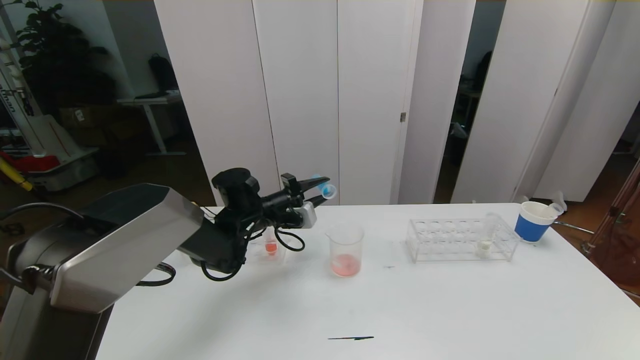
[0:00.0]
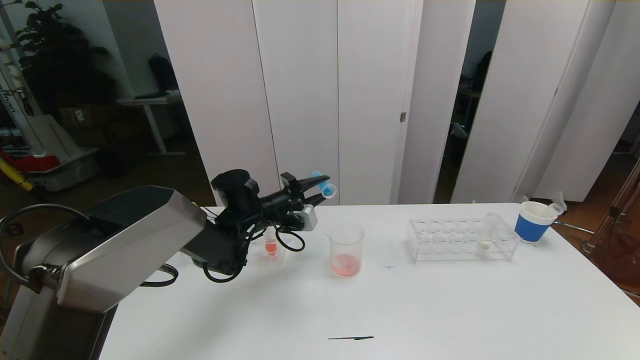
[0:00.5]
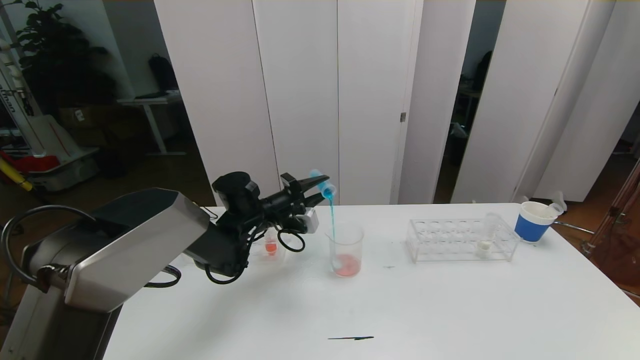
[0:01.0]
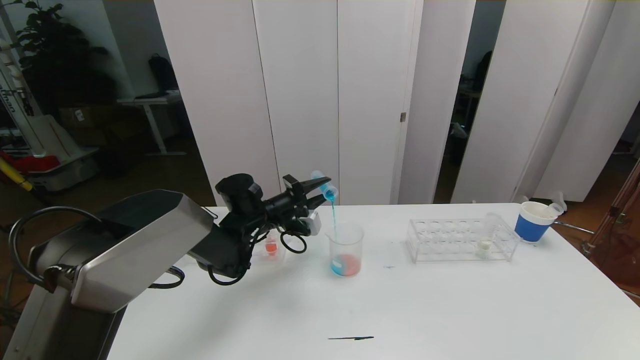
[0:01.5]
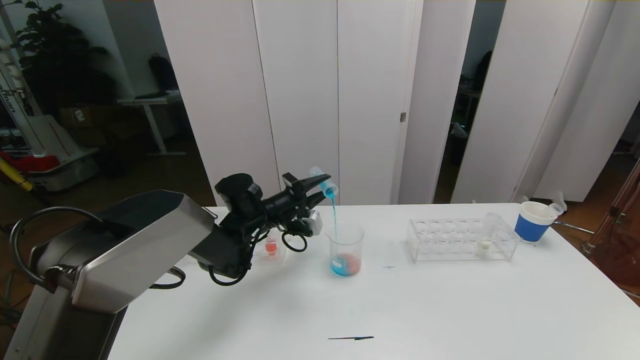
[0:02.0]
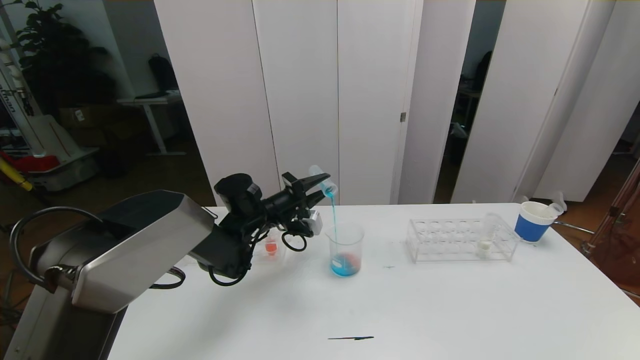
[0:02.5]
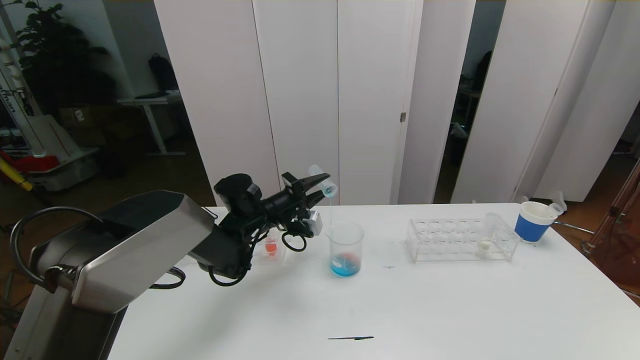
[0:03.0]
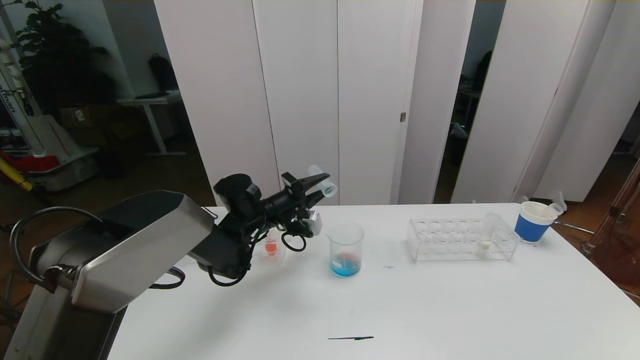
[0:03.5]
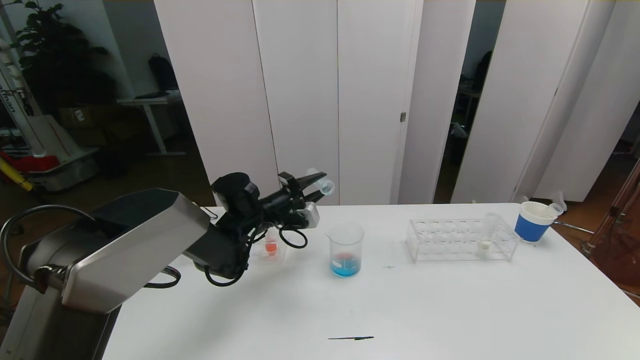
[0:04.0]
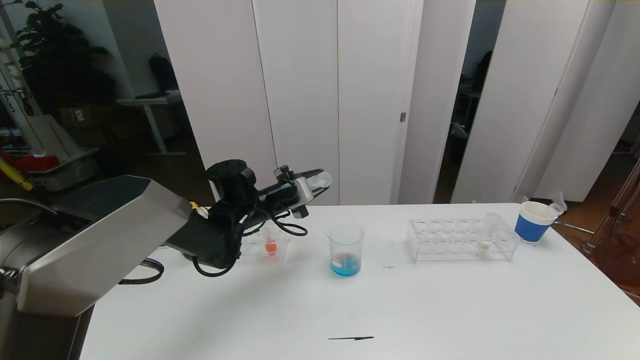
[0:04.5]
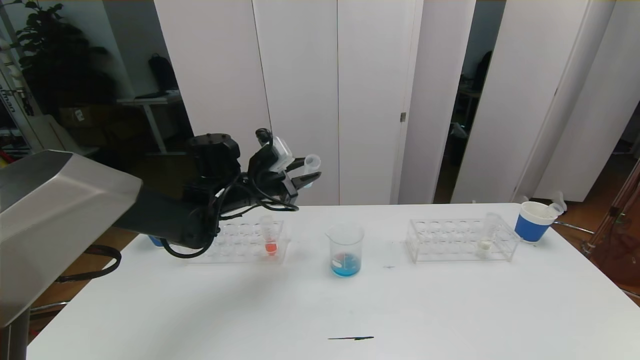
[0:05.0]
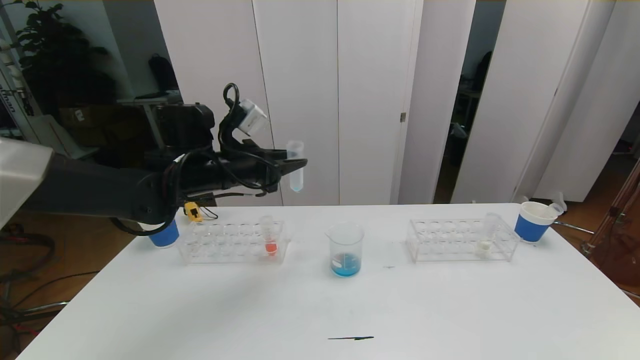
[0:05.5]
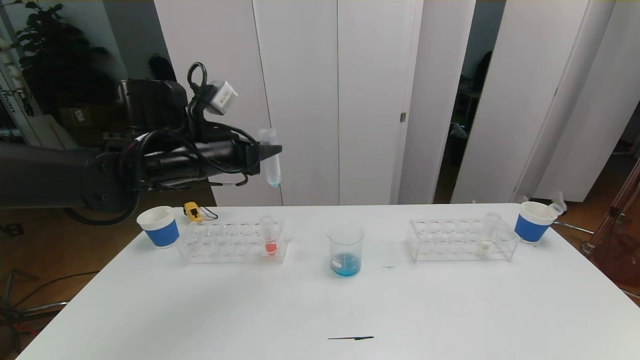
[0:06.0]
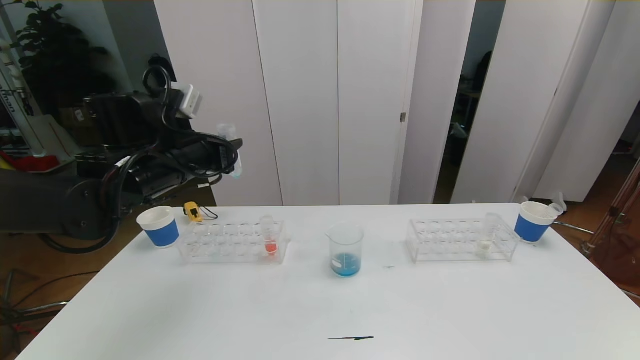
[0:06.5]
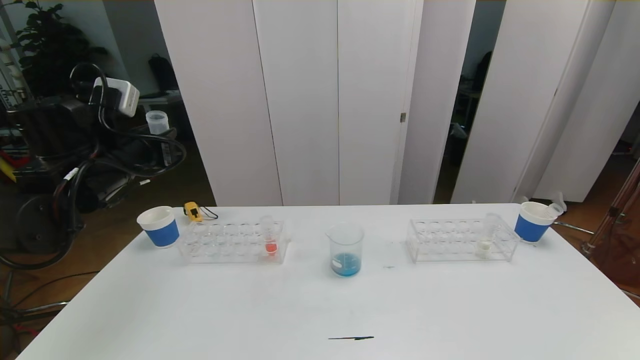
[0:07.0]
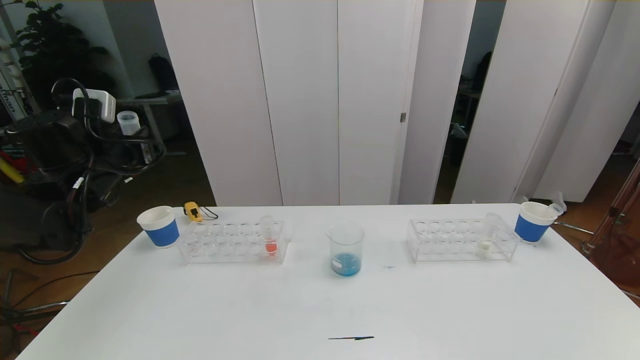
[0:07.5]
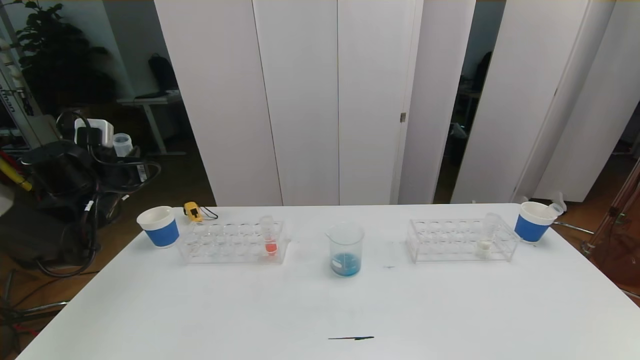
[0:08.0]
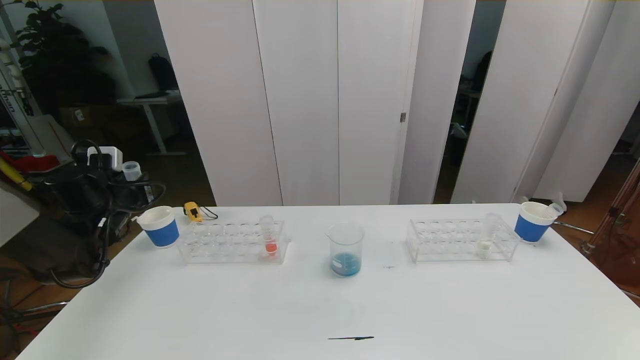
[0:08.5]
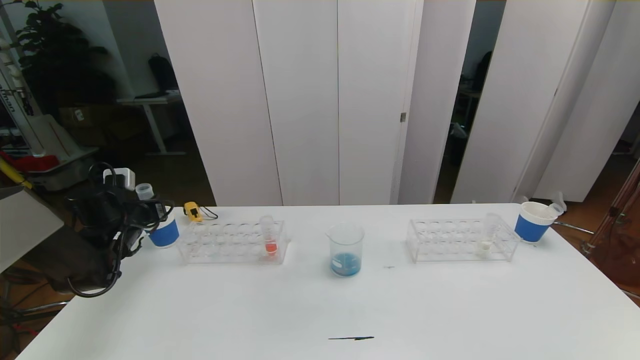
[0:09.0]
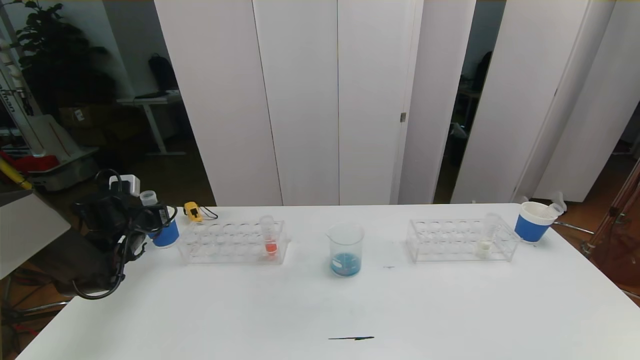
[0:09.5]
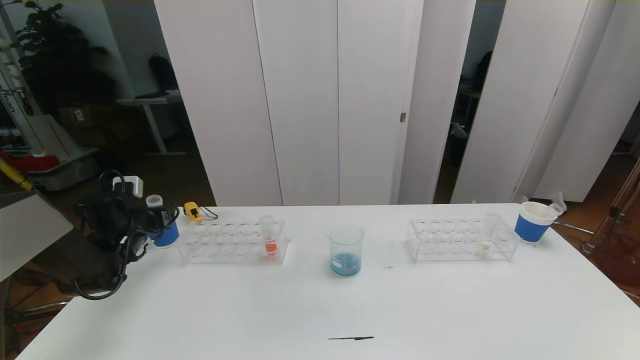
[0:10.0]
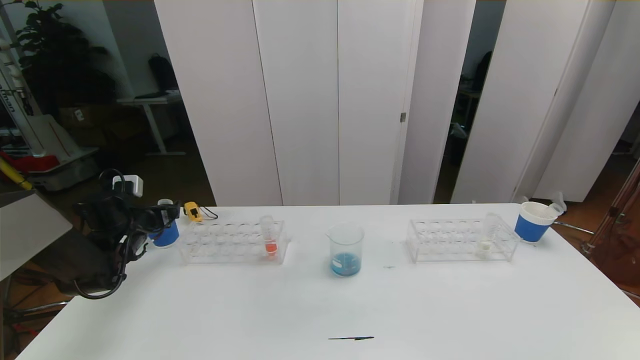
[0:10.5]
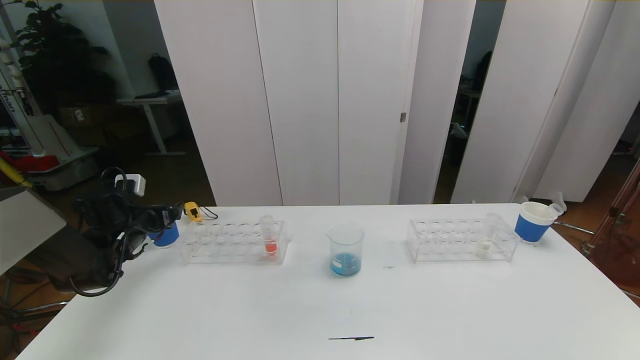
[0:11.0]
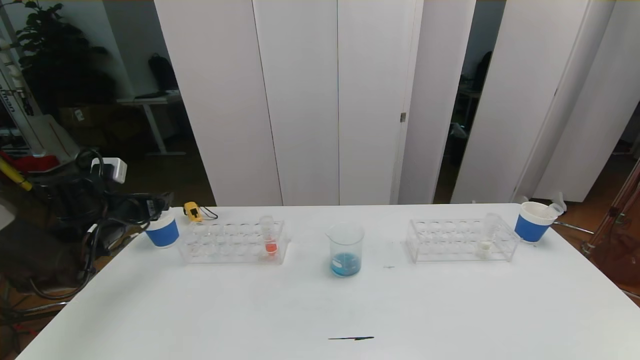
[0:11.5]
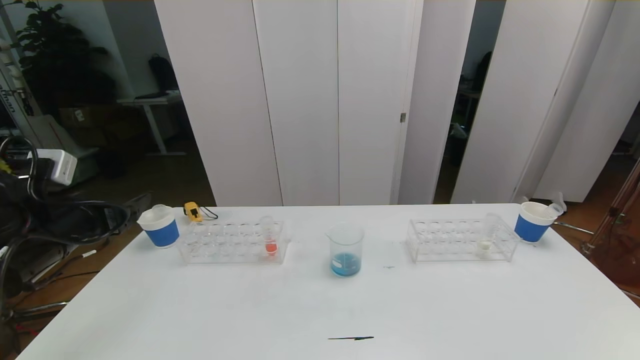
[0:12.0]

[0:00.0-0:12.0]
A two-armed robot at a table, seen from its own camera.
Task of the whole recording: pick up the test tube with red pigment the test tube with blue pigment and the test tube with white pigment by grippers and pour them into the beaker.
0.0 to 4.0 s: The grippers move only a little.
4.0 to 6.0 s: The left gripper travels upward, backward and to the left by about 15 cm.
6.0 to 8.0 s: The left gripper goes about 20 cm to the left and downward.
8.0 to 10.0 s: The left gripper heads downward, covering some 10 cm, and opens up.
10.0 to 12.0 s: The left gripper shifts roughly 20 cm backward and upward.

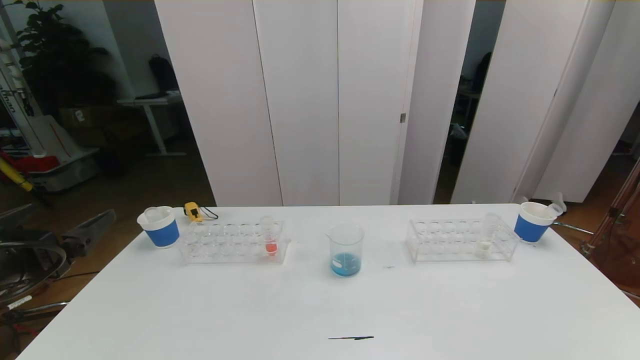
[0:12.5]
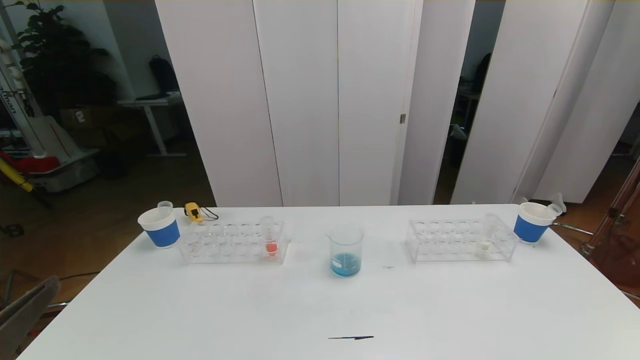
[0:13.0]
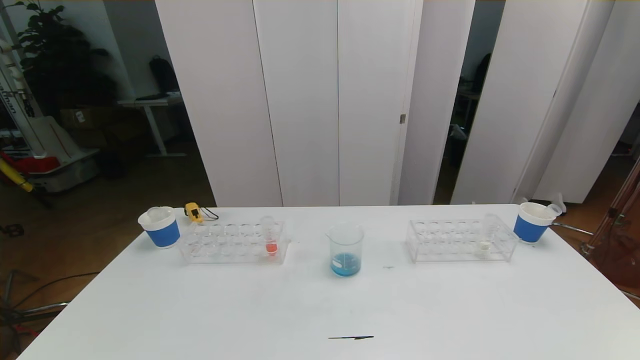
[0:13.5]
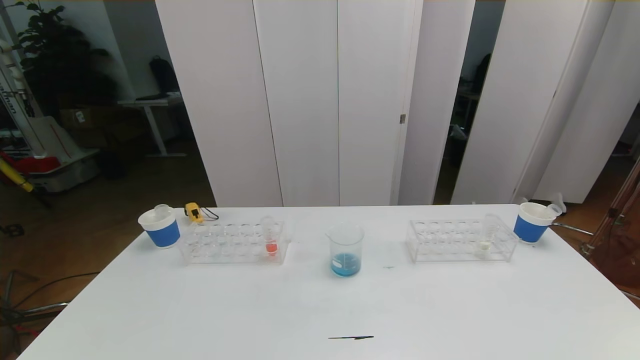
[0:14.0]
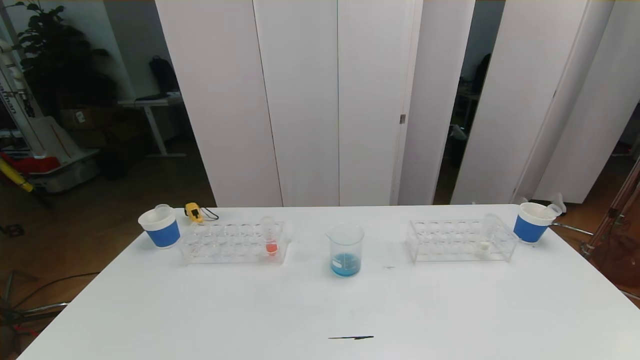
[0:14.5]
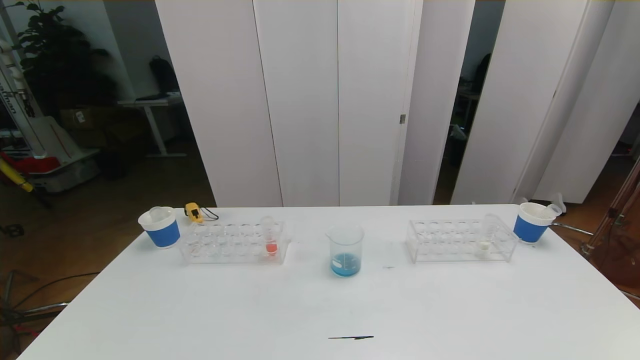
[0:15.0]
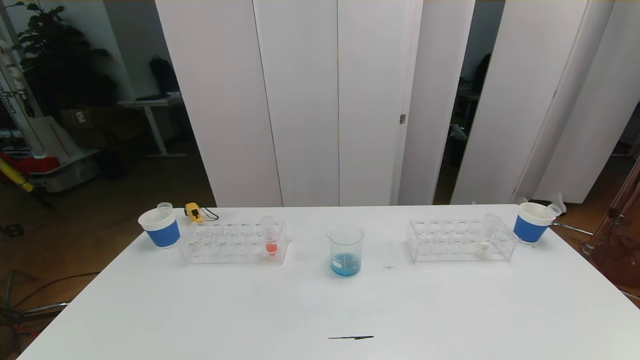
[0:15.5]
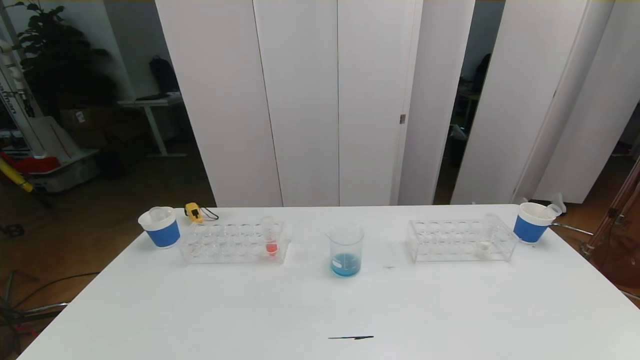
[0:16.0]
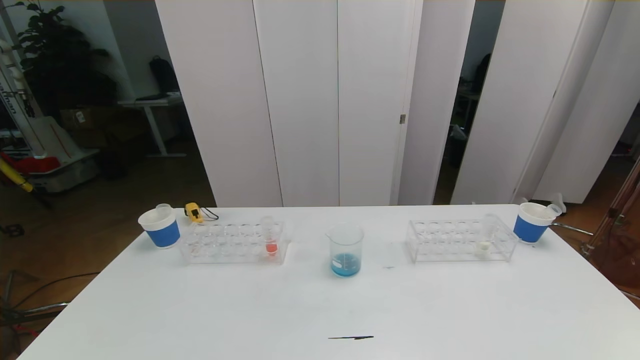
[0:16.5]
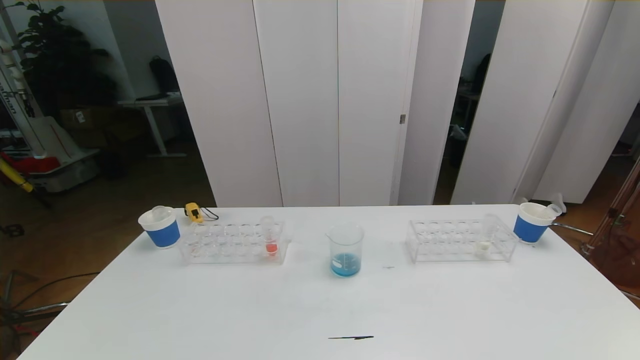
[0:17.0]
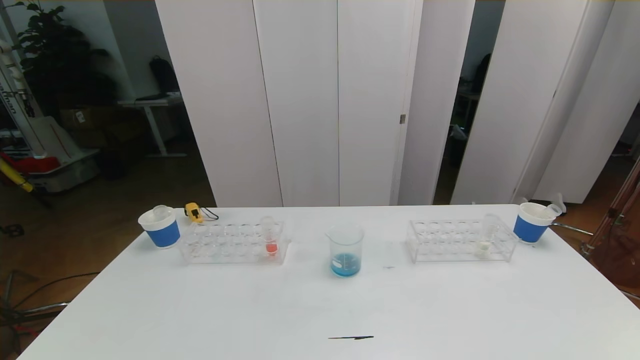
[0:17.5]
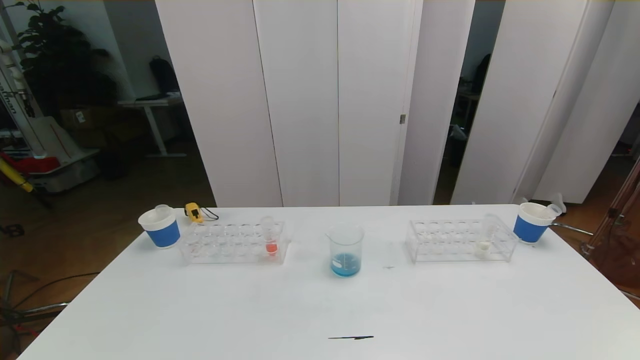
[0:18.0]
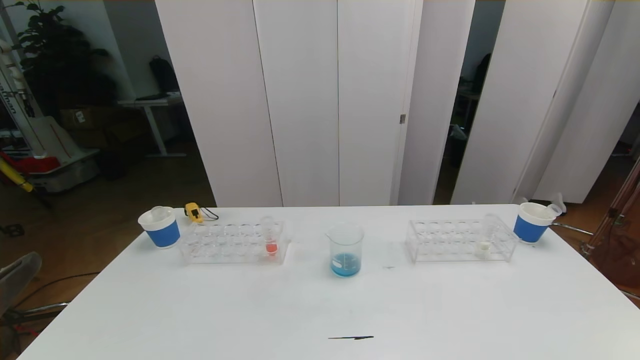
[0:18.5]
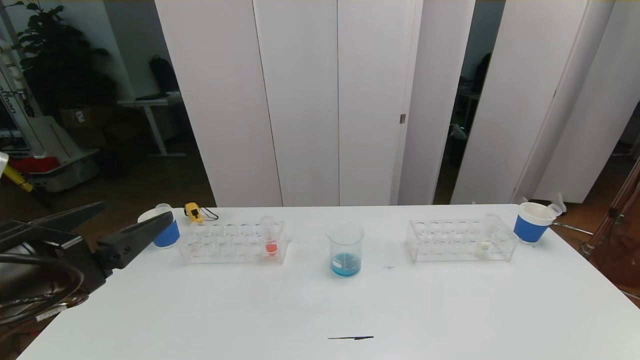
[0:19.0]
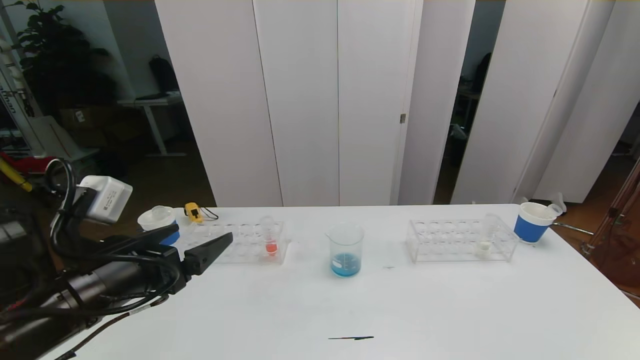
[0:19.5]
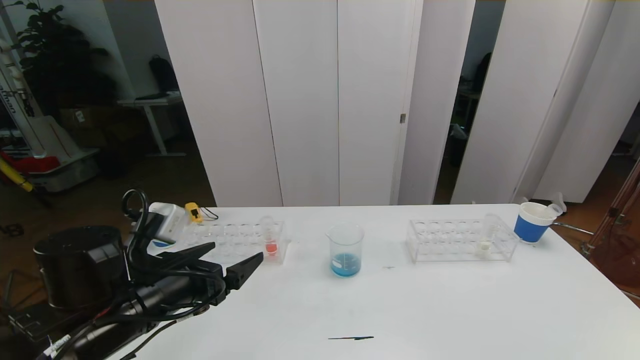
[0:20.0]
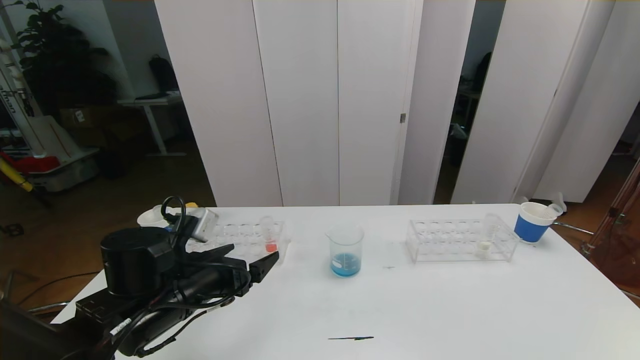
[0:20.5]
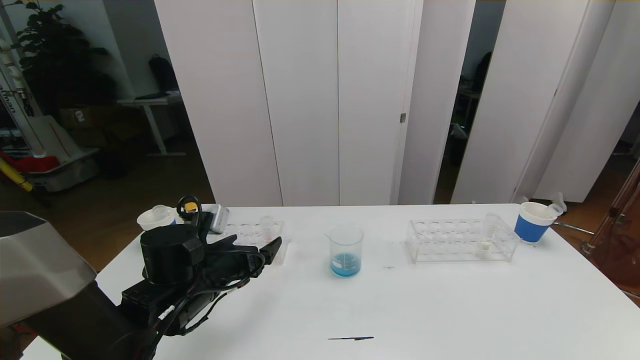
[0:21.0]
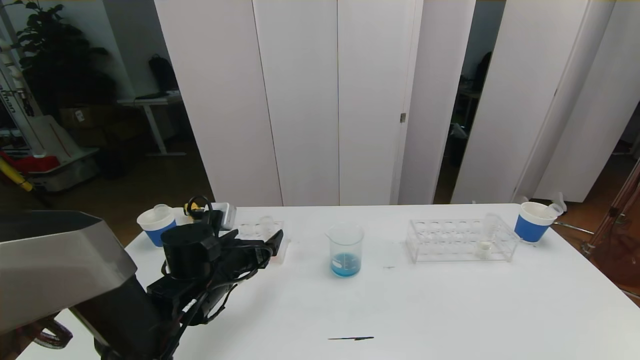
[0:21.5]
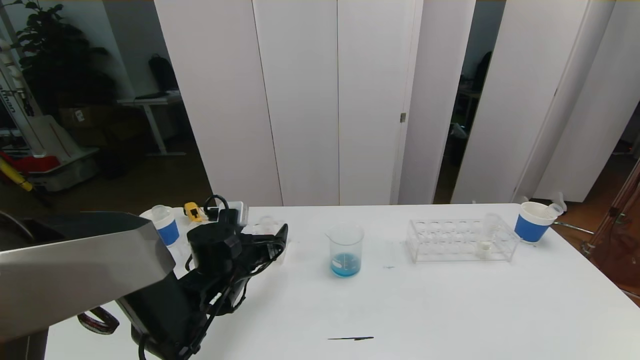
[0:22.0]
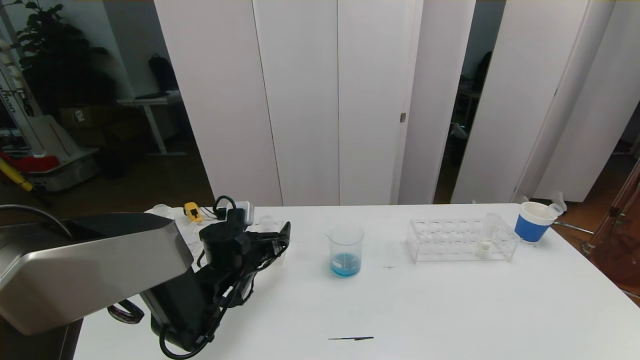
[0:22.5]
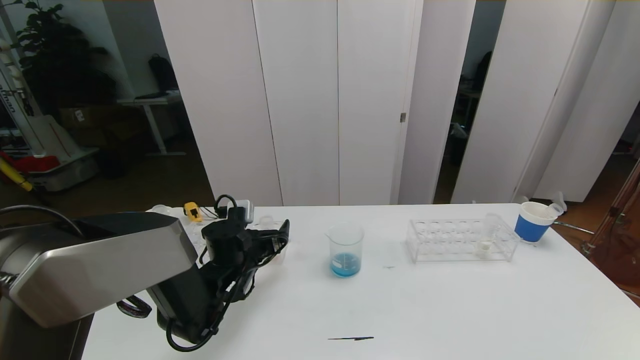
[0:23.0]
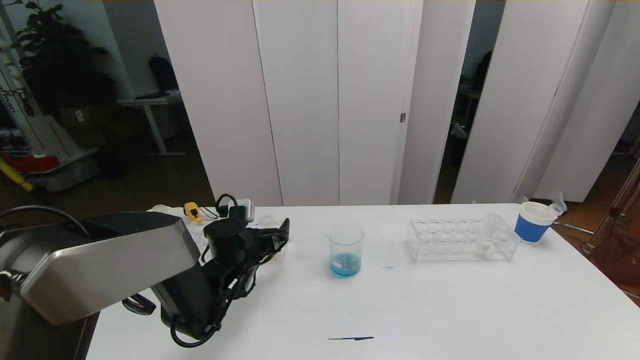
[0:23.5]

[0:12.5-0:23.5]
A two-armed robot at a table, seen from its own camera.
Task of the whole recording: pick up the test tube with red pigment the test tube with blue pigment and the test tube with white pigment by grippers and pour them into the beaker.
14.5 to 16.0 s: Neither gripper changes place.
18.0 to 20.0 s: The left gripper goes roughly 25 cm forward.
20.0 to 21.5 s: The left gripper goes about 10 cm forward and downward.
21.5 to 23.5 s: The left gripper heads forward, covering some 5 cm.
